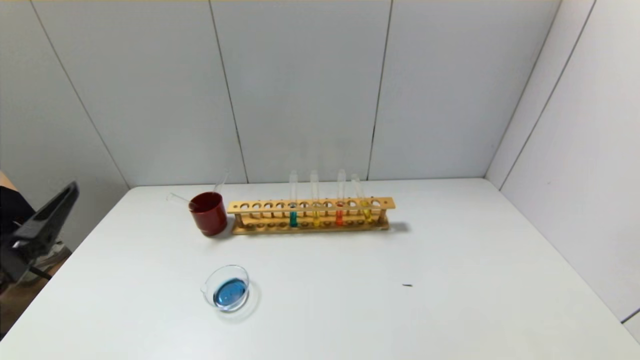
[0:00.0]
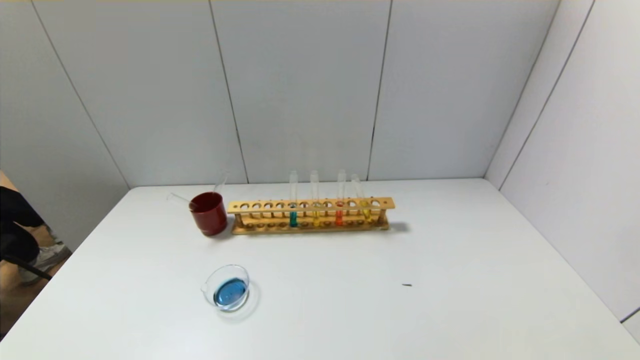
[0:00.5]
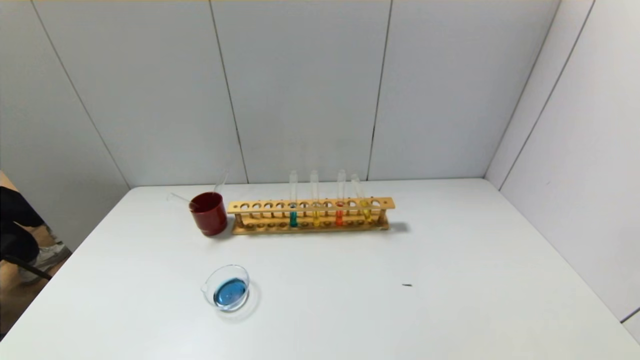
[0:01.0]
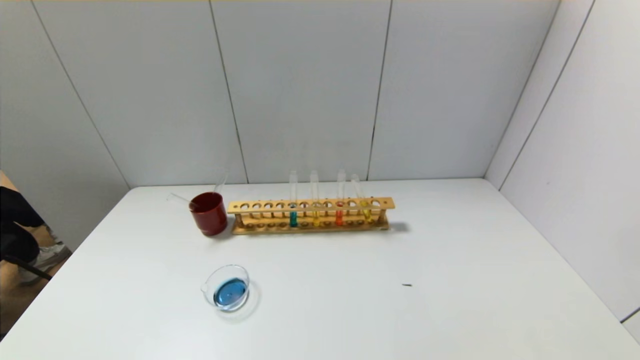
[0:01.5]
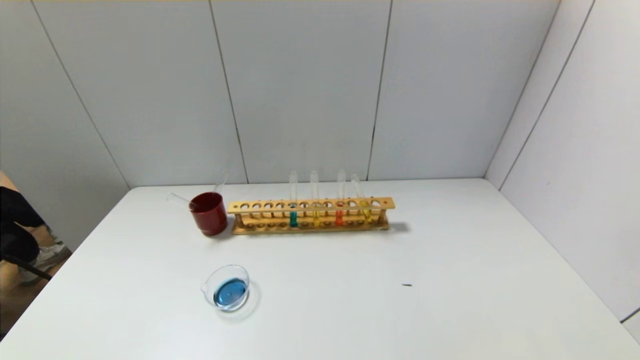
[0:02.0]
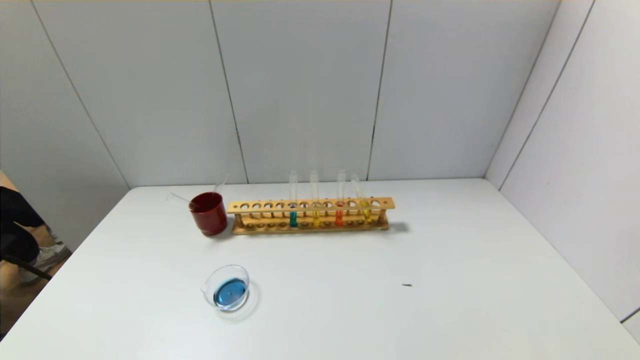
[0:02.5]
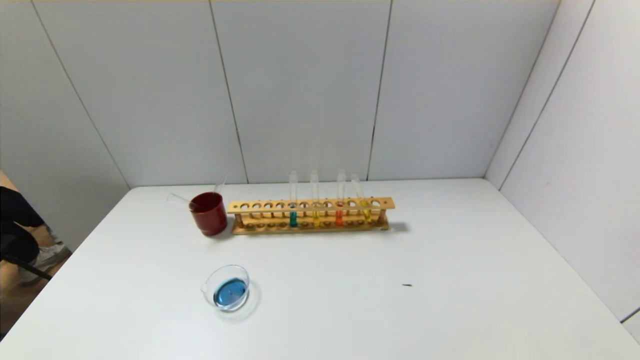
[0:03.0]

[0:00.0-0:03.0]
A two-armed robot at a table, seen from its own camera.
0:00.0 to 0:01.5: The left gripper is displaced backward by about 10 cm.
